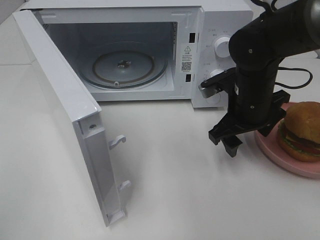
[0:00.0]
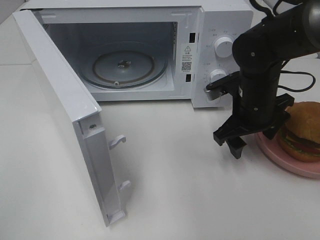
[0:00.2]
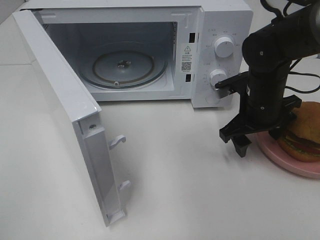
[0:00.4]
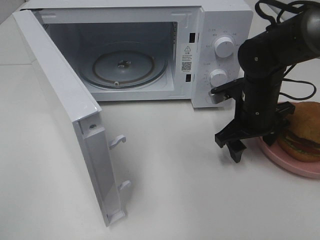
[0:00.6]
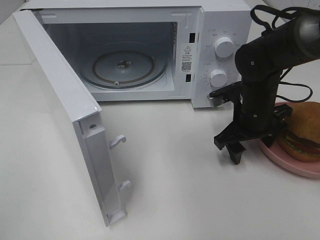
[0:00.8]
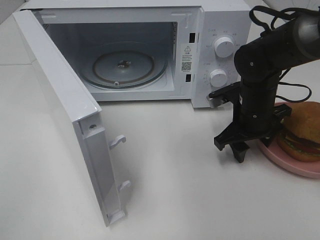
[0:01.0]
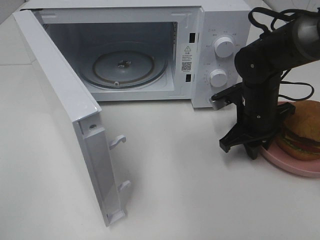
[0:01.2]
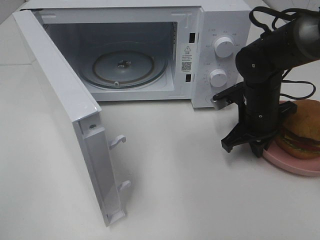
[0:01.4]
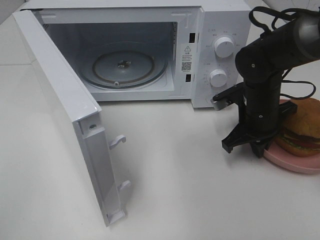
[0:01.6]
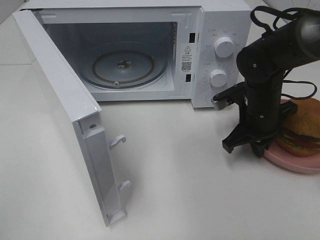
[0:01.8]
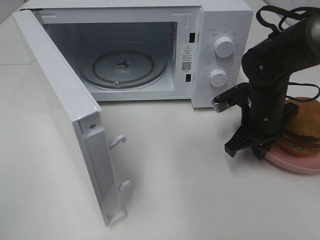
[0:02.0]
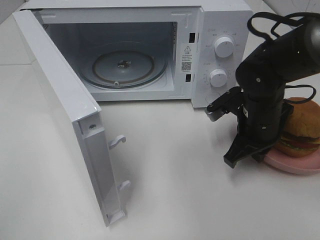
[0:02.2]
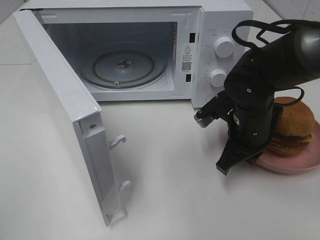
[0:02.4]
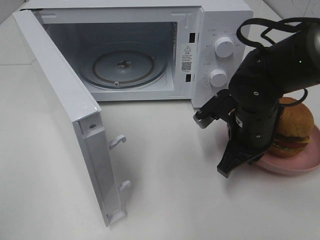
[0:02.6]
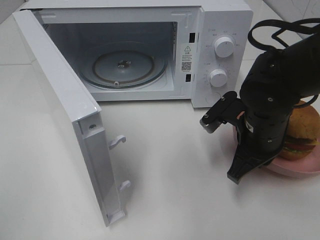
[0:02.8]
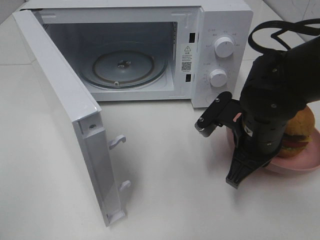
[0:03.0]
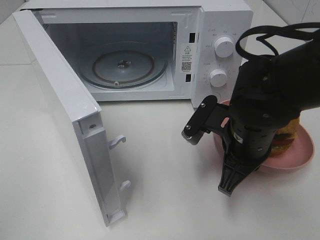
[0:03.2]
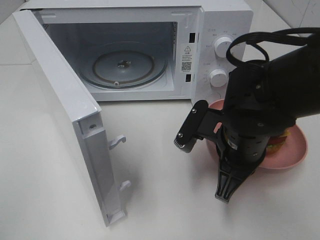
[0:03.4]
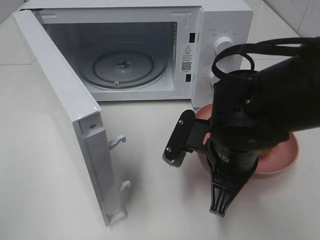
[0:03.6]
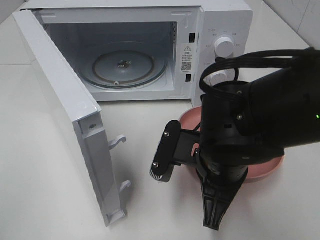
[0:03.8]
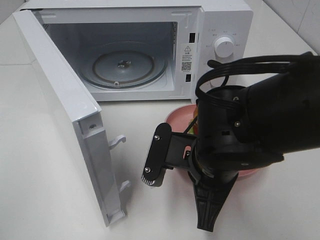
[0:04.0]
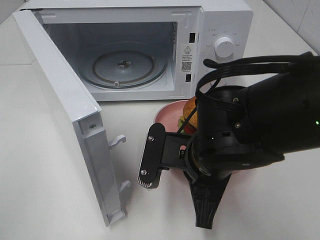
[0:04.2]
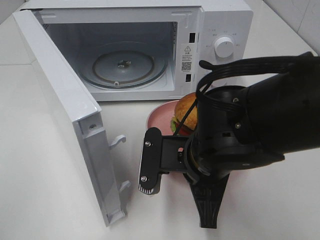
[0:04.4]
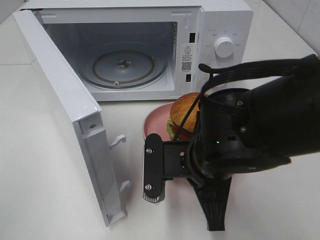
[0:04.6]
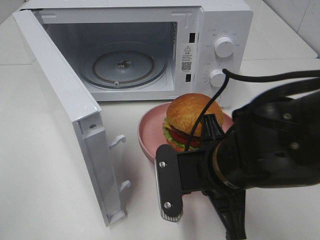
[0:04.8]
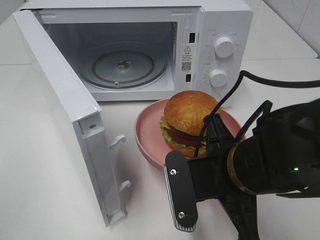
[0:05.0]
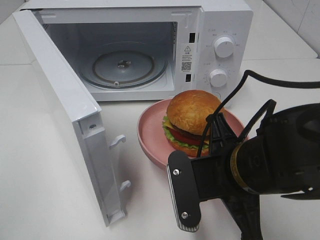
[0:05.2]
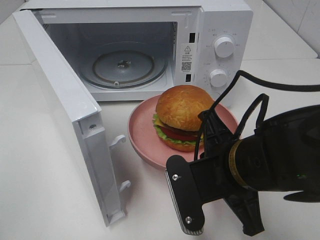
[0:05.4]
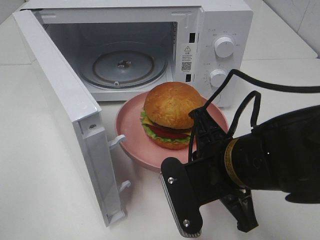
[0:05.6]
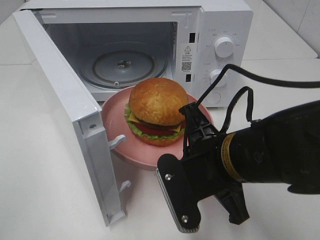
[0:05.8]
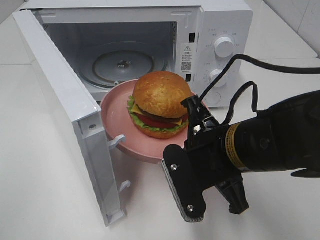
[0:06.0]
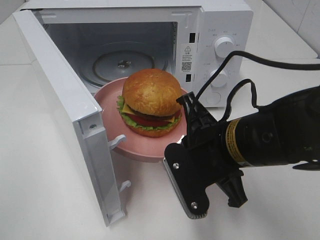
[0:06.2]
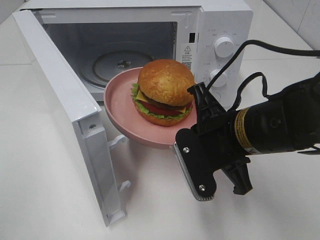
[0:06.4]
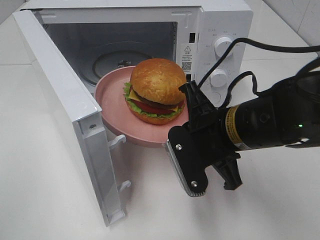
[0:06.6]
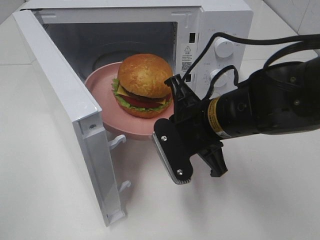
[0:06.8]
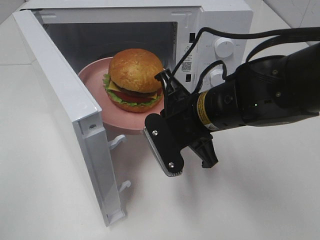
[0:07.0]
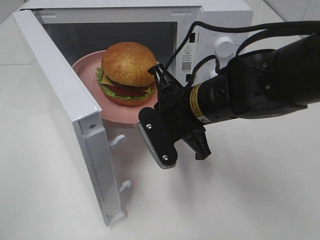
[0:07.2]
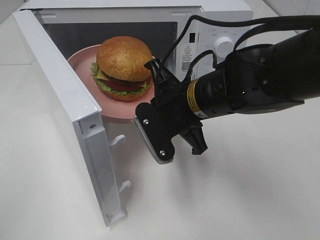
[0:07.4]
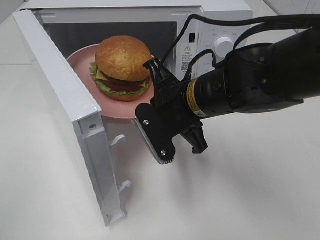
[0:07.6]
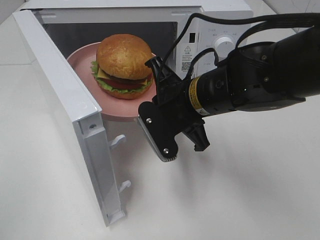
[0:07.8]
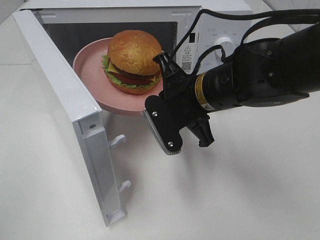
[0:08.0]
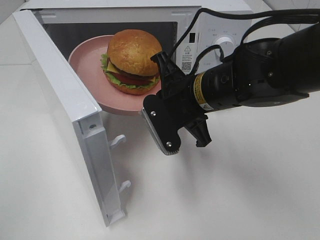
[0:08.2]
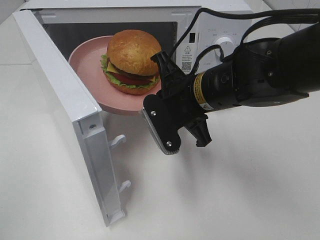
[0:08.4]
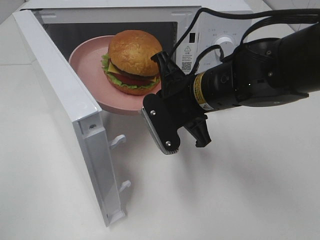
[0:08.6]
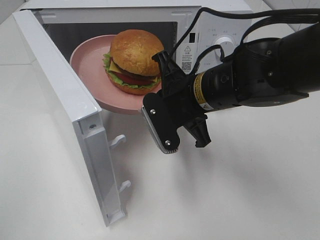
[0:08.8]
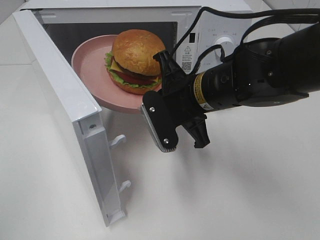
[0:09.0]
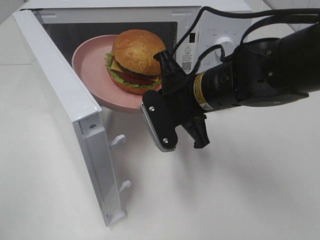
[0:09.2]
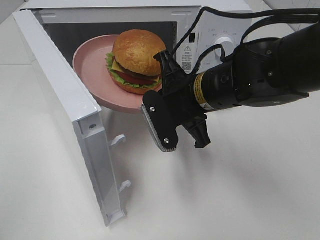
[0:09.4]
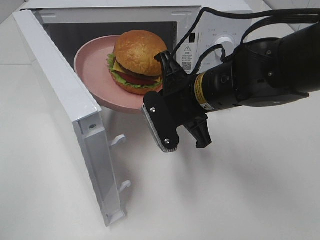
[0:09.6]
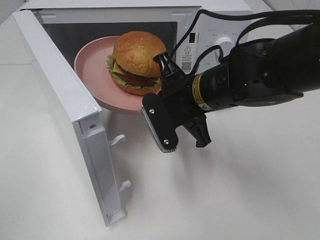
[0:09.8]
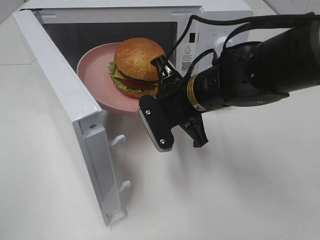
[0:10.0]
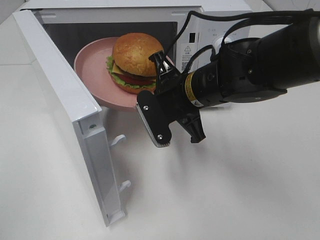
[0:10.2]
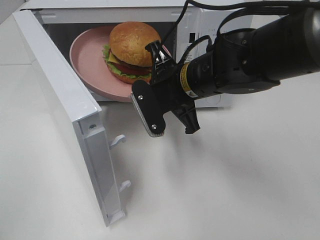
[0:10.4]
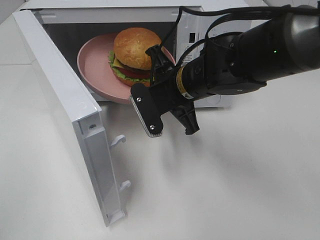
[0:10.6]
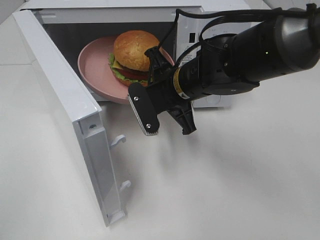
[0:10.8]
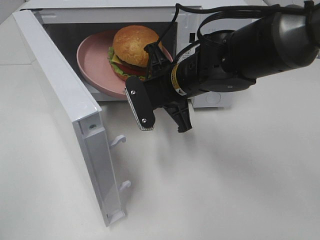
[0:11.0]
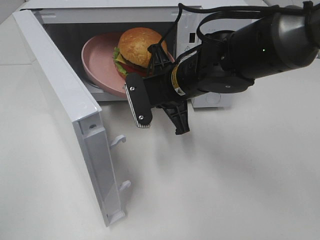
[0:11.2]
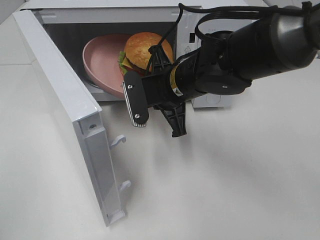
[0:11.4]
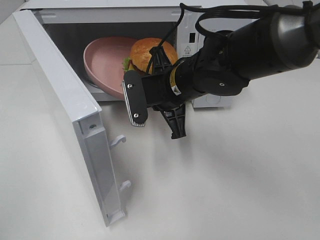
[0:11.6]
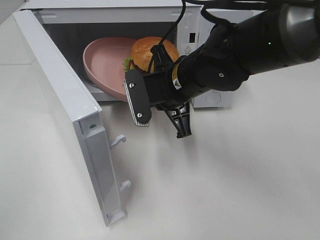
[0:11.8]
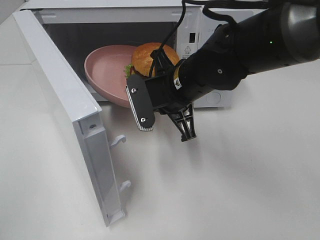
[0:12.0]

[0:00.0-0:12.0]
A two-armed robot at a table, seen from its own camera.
Task of the whole recording: Heat the burger.
0:00.0 to 0:01.6: The right gripper ends up roughly 5 cm from where it was, and closes up.
0:01.6 to 0:03.0: The right gripper moves backward, approximately 10 cm.
0:03.0 to 0:04.4: The right gripper shifts approximately 10 cm to the left and backward.
0:06.0 to 0:07.6: The right gripper shifts roughly 10 cm forward.
0:07.6 to 0:10.4: The grippers make only small movements.
0:10.4 to 0:12.0: There are only small adjustments of the grippers.

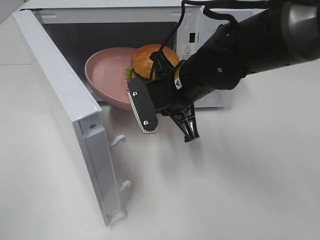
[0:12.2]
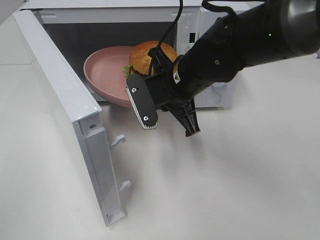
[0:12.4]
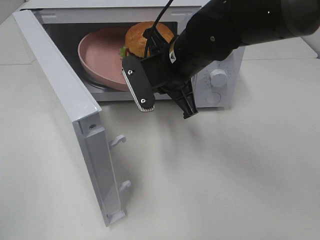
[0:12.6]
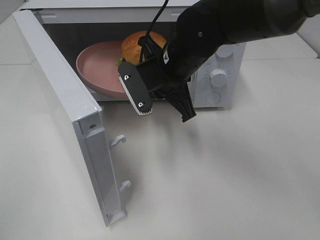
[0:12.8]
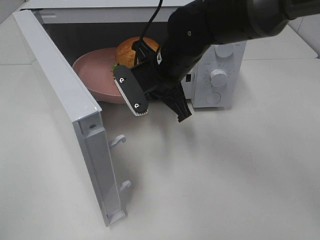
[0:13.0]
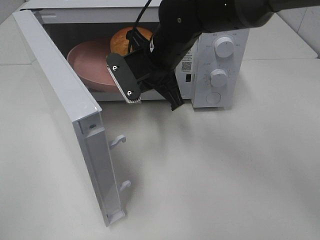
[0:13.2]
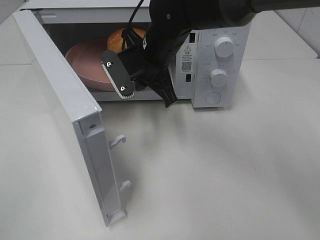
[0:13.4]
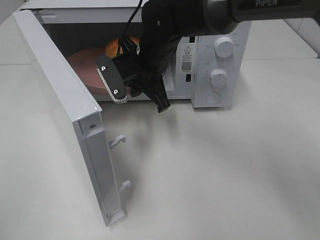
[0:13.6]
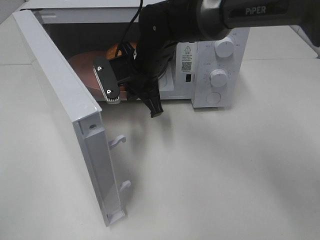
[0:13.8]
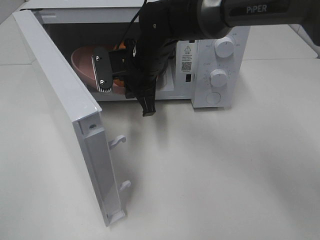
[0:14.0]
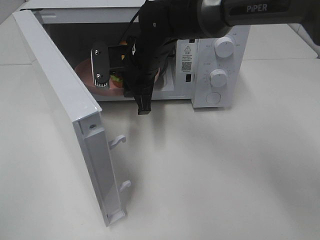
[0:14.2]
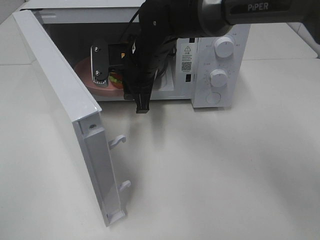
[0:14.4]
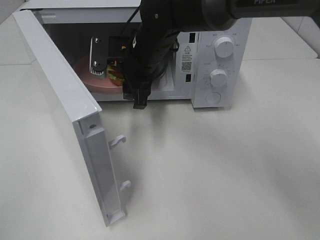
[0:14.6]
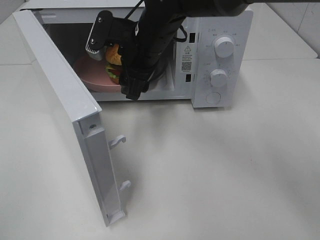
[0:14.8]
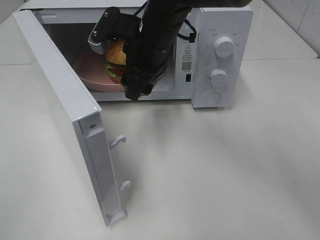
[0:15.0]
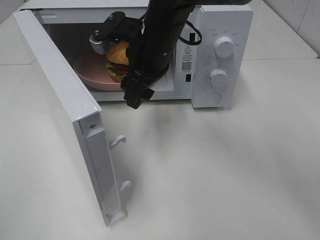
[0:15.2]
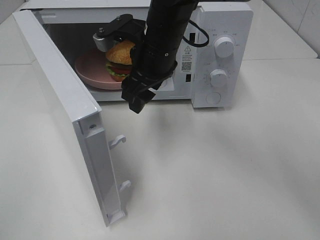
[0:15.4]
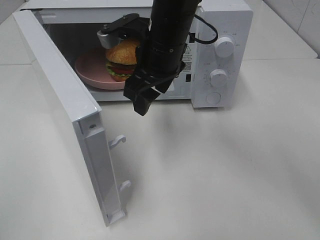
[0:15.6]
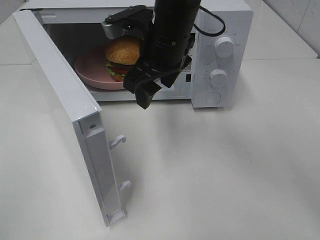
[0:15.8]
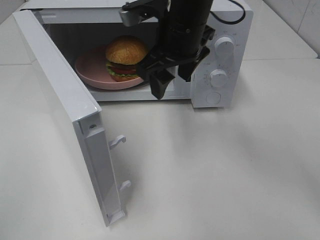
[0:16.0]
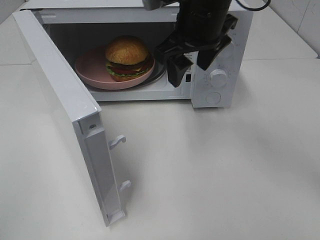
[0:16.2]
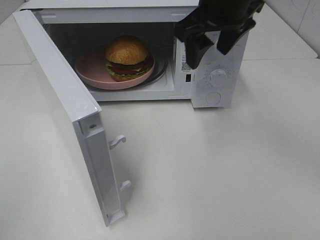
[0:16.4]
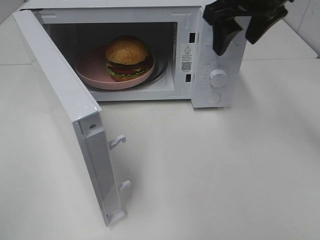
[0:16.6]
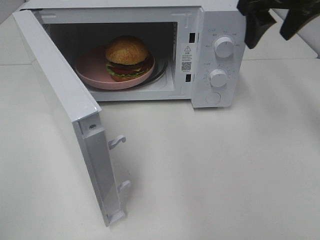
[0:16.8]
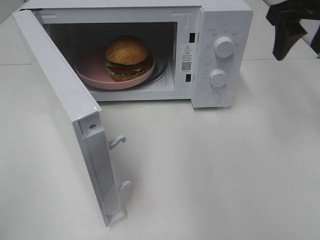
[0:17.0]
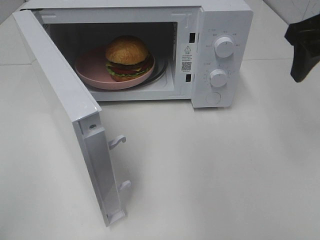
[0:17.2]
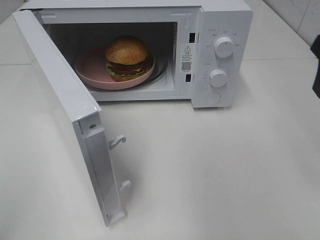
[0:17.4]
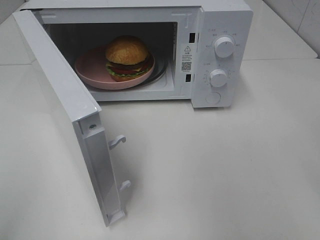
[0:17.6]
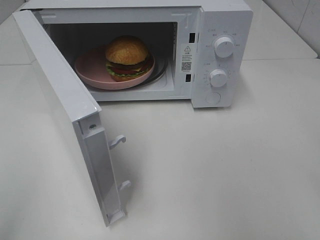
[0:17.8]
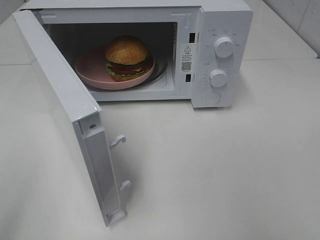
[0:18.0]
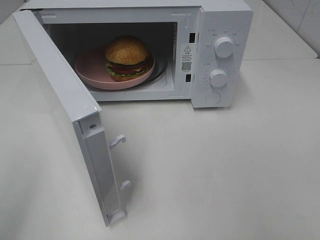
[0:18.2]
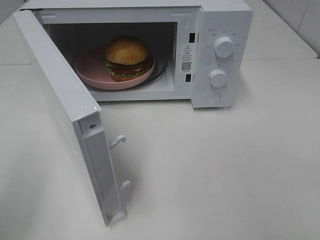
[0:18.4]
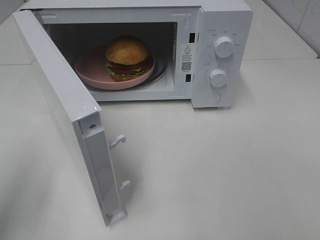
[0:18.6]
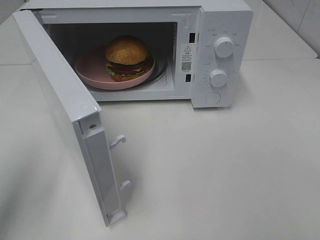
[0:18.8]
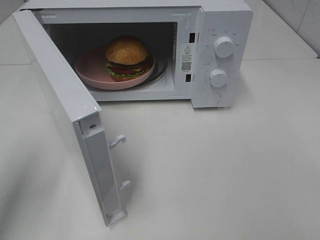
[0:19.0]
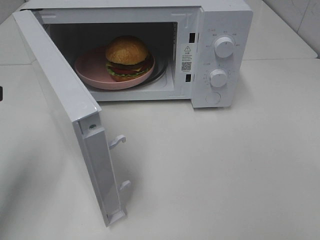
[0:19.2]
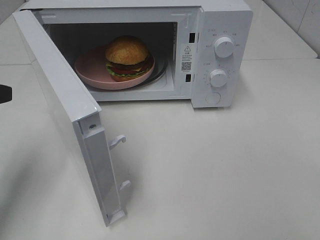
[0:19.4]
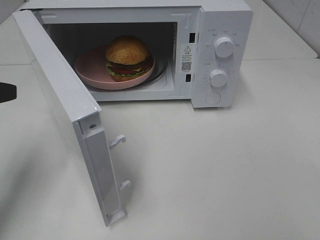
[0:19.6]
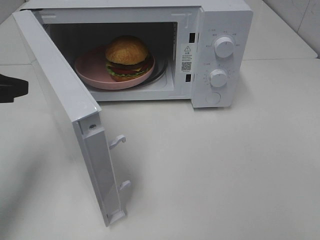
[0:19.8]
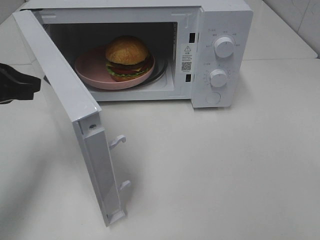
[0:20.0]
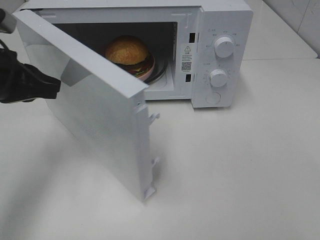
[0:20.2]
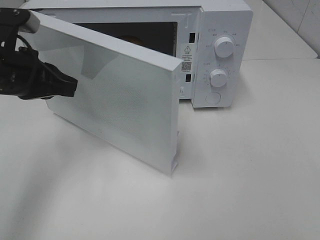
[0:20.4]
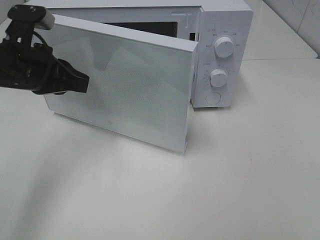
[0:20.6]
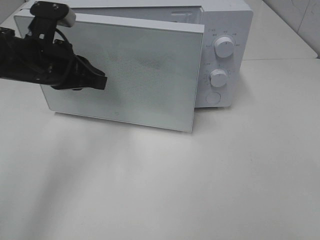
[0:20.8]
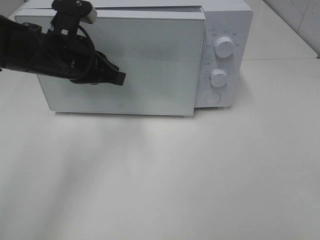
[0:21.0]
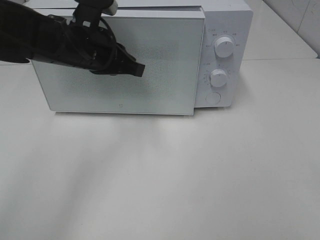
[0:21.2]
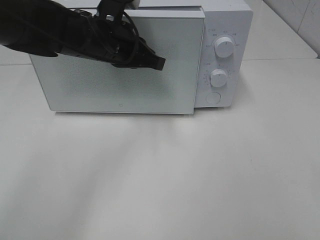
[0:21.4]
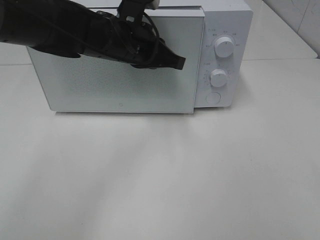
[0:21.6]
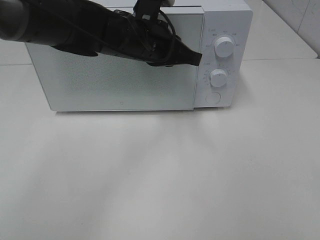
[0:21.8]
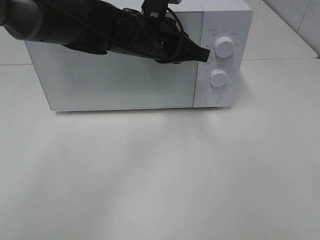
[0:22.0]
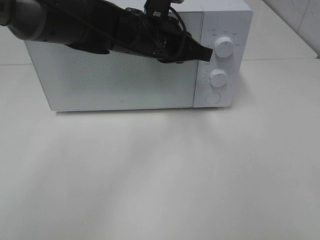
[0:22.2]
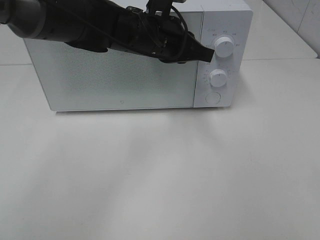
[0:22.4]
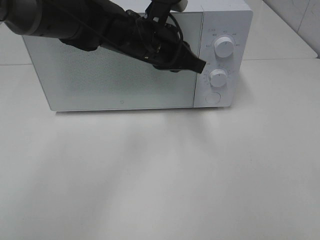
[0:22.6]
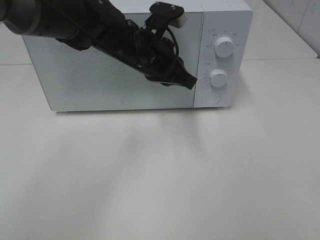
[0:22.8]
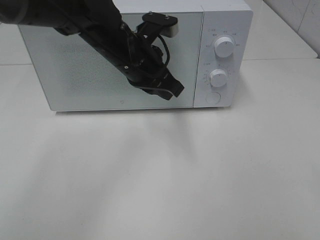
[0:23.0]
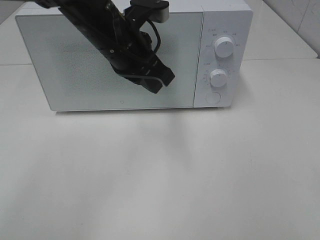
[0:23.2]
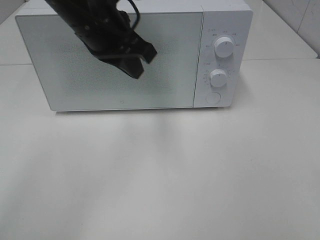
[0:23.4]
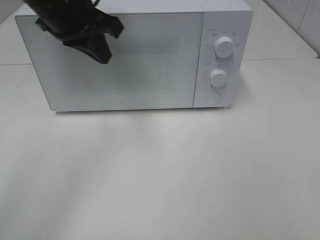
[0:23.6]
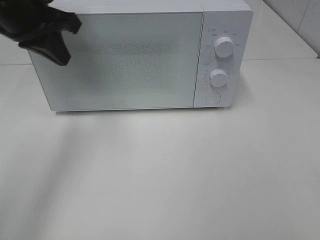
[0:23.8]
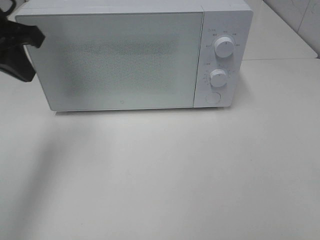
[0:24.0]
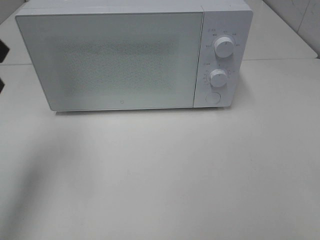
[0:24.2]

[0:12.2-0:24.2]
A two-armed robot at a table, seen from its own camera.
Task of the whole recording: Heat the burger.
Step, 0:12.2 to 0:14.2: Right hand: place the plate in the microwave.
Step, 0:14.4 to 0:22.0: Left hand: close the microwave door.
0:12.2 to 0:13.8: The right gripper moves forward and to the left, some 10 cm.
0:13.8 to 0:15.2: The right gripper shifts by roughly 5 cm, and opens.
0:15.2 to 0:16.6: The right gripper is displaced to the right and upward by some 20 cm.
0:16.6 to 0:18.2: The right gripper goes about 30 cm backward and to the right, while the left gripper shifts some 5 cm forward.
0:18.2 to 0:19.8: The left gripper goes roughly 20 cm forward and downward.
0:19.8 to 0:21.2: The left gripper heads to the right and forward, covering approximately 20 cm.
0:21.2 to 0:22.6: The left gripper shifts some 10 cm to the right.
0:22.6 to 0:24.2: The left gripper shifts approximately 30 cm to the left, backward and upward.
